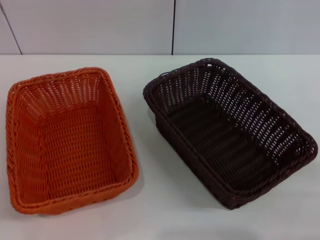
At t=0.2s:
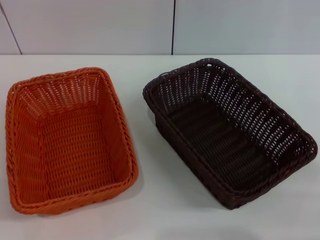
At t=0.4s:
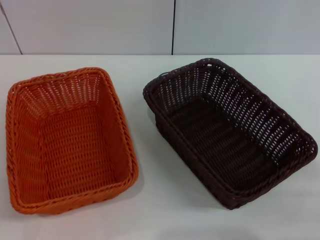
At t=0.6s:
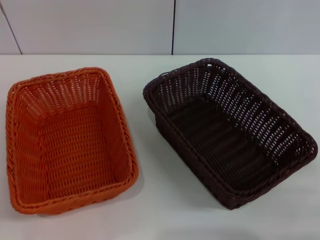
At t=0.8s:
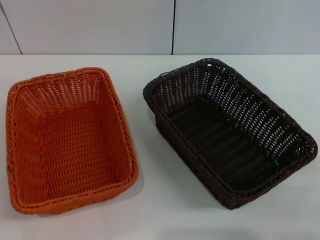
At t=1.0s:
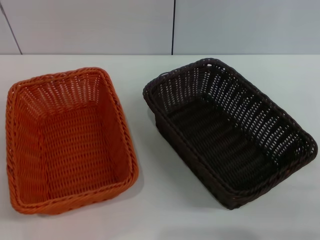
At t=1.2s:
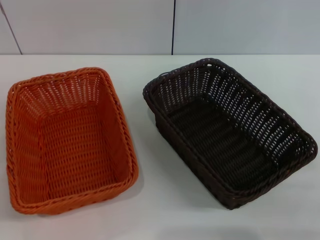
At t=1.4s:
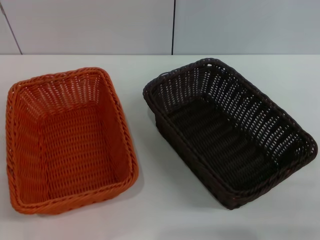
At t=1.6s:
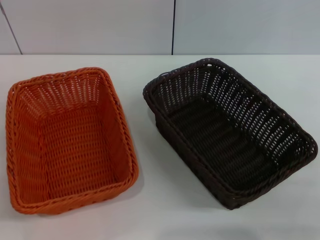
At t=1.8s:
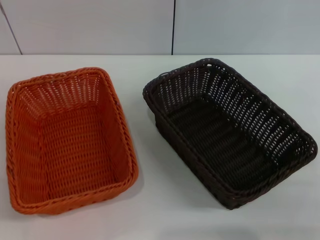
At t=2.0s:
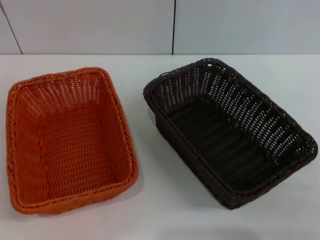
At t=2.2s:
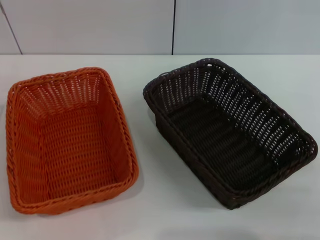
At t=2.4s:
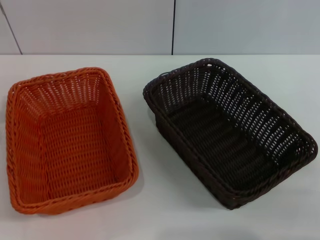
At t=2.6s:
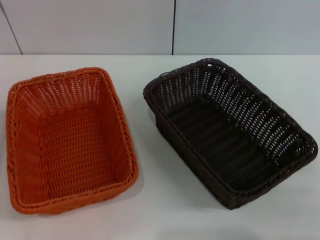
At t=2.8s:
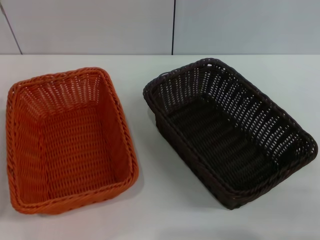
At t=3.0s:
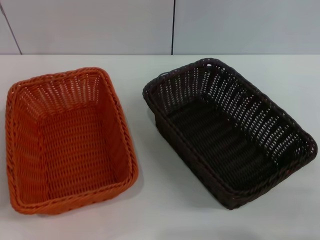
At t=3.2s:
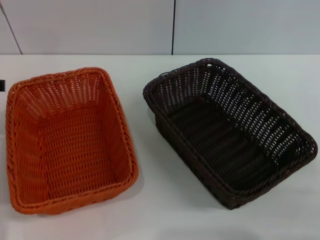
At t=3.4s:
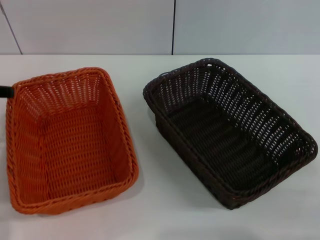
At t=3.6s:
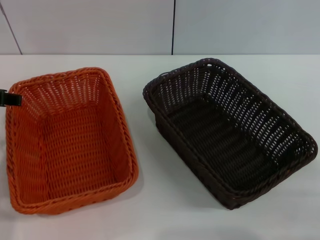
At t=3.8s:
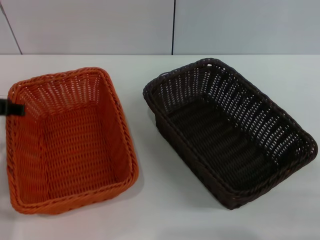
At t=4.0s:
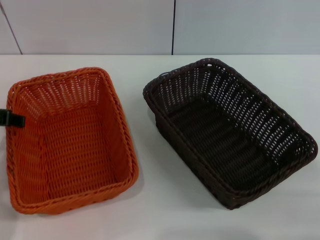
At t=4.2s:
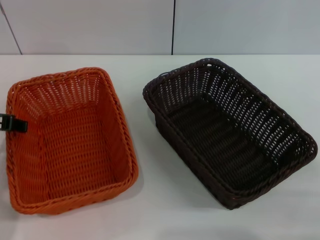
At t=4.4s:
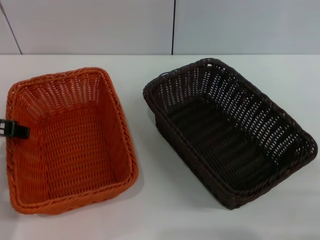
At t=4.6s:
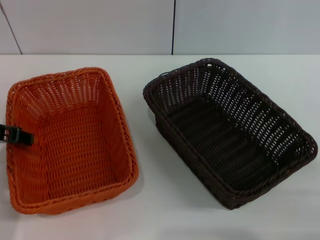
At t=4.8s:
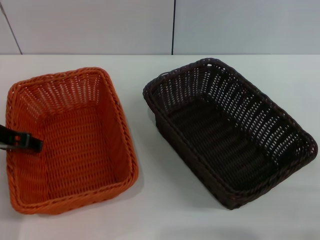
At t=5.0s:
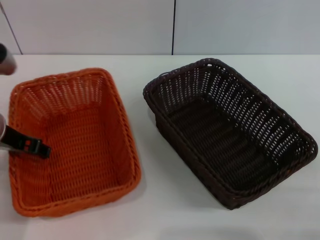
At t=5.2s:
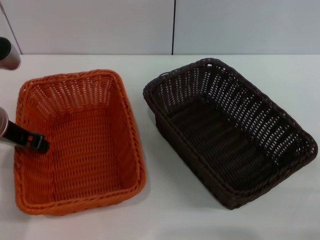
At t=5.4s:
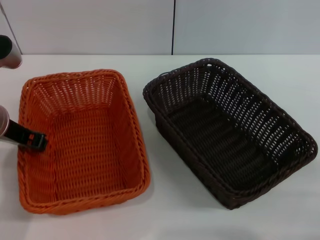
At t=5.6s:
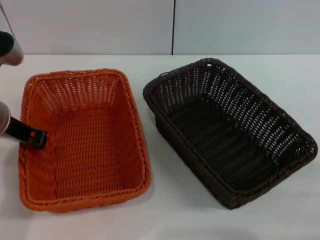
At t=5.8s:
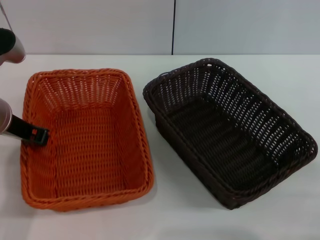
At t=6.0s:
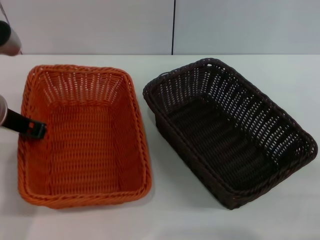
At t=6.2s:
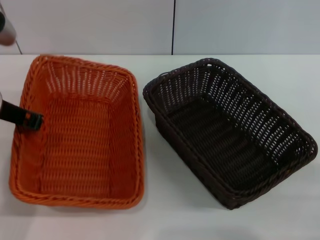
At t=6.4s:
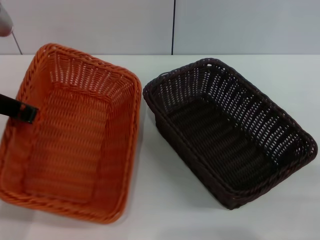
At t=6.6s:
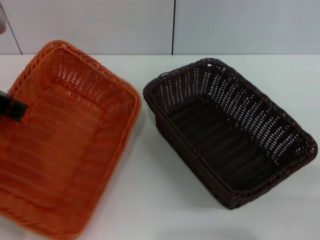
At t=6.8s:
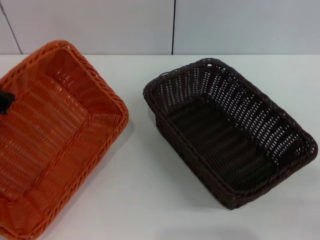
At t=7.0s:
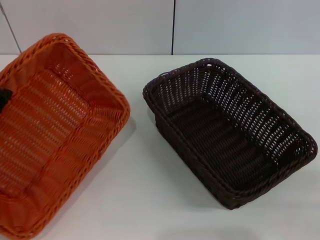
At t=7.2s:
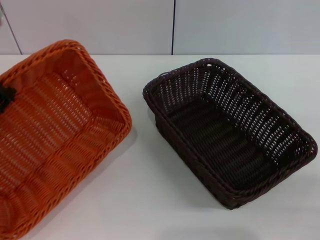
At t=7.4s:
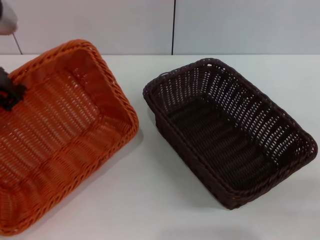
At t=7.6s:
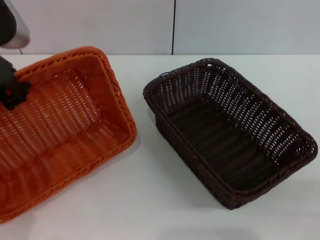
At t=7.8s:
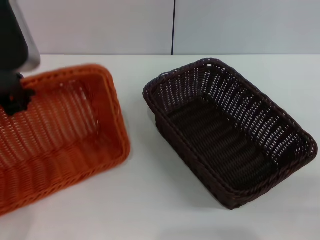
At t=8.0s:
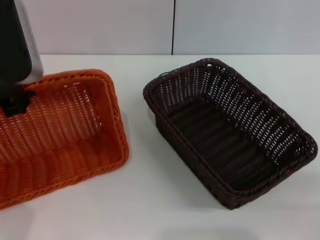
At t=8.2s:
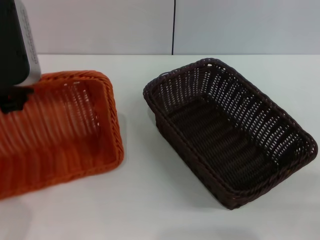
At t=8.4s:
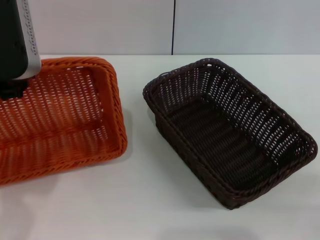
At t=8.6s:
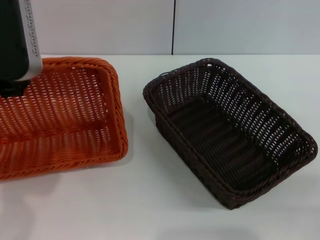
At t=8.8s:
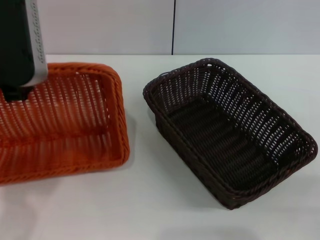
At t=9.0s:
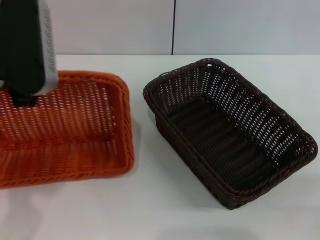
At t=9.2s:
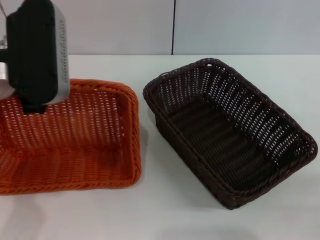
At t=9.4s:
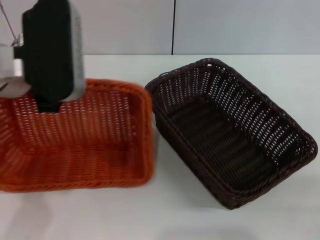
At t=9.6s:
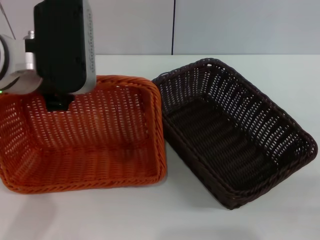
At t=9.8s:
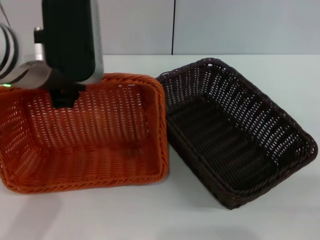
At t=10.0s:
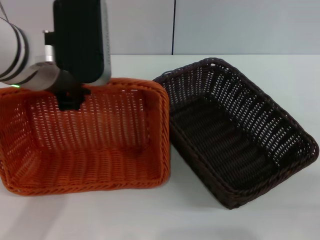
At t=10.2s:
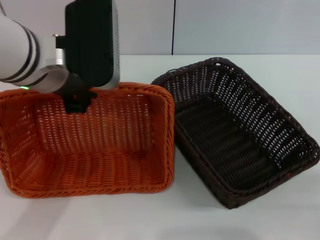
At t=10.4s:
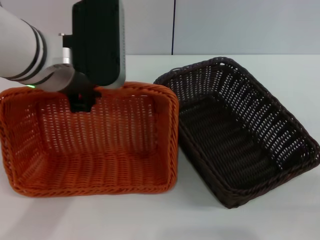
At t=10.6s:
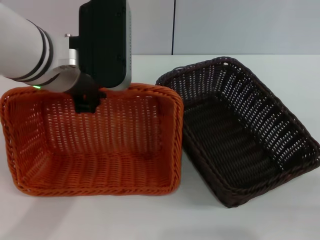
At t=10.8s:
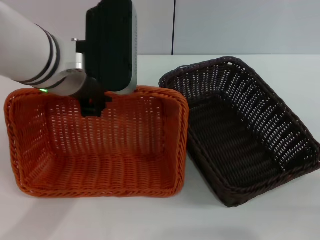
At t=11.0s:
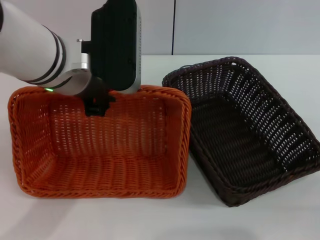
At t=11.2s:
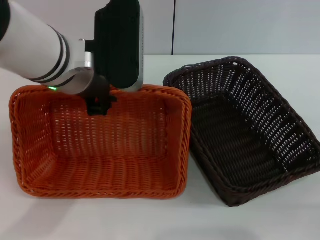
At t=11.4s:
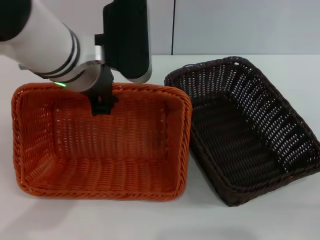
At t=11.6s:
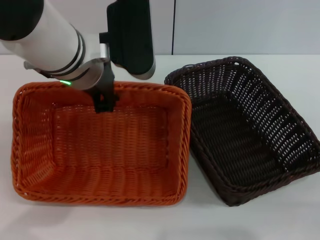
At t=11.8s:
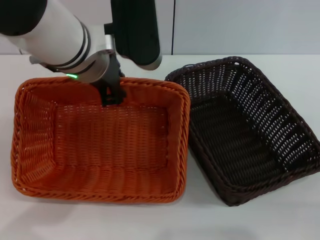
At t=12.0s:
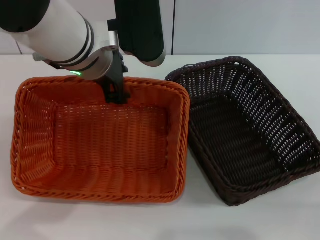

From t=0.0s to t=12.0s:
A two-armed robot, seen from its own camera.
Step, from t=0.0s to t=6.6s: Pick up the light basket with the left gripper.
From t=3.0s to t=4.4s: The left gripper is displaced downward by approximately 5 cm.
From t=4.4s to t=6.0s: The left gripper closes.
From t=6.0s to t=7.6s: The left gripper moves upward, approximately 5 cm.
From t=9.0s to t=10.4s: The left gripper moves to the right, roughly 5 cm.
From t=10.4s to t=12.0s: The left gripper ends up some 5 cm from where it was.

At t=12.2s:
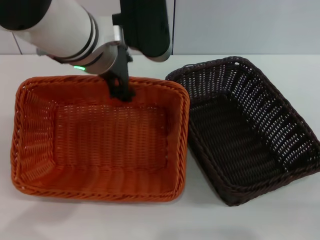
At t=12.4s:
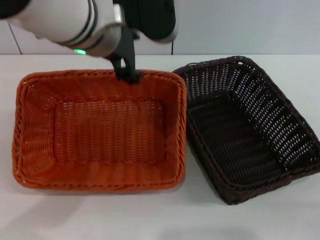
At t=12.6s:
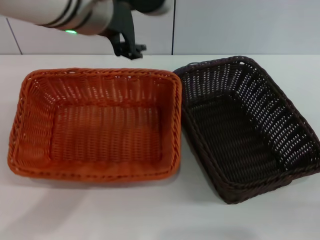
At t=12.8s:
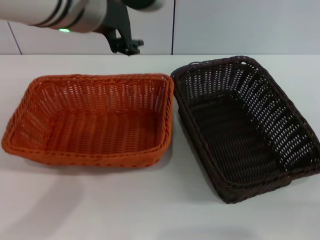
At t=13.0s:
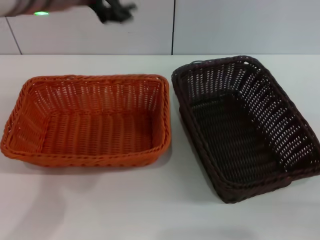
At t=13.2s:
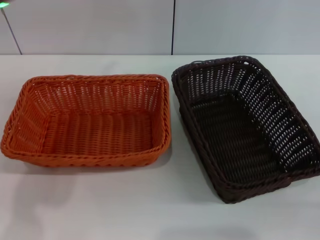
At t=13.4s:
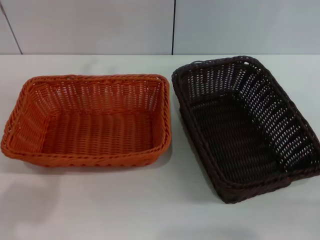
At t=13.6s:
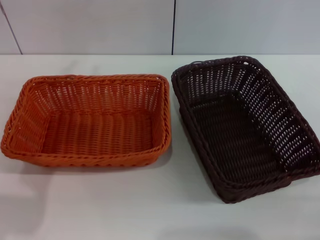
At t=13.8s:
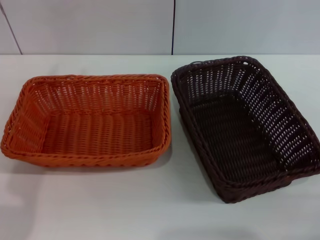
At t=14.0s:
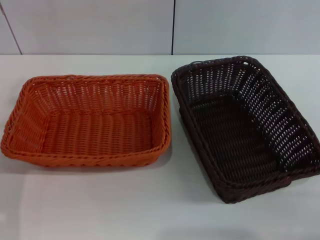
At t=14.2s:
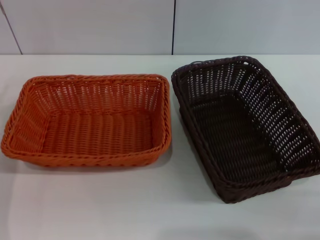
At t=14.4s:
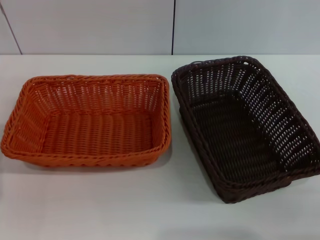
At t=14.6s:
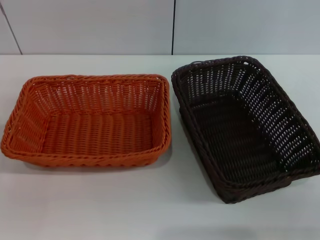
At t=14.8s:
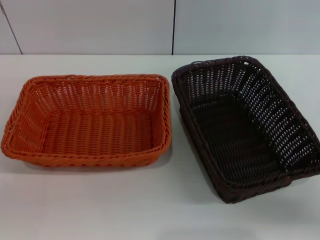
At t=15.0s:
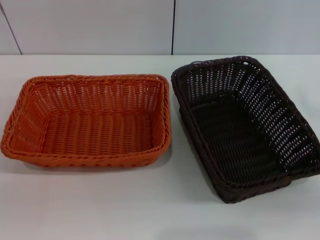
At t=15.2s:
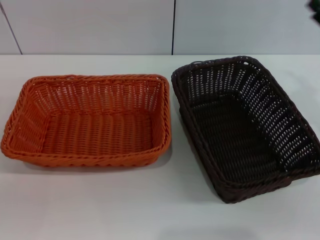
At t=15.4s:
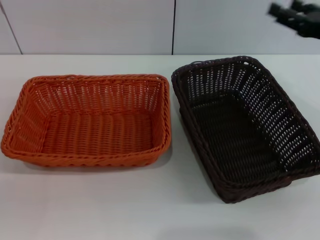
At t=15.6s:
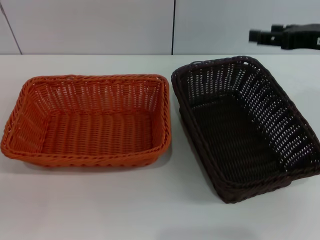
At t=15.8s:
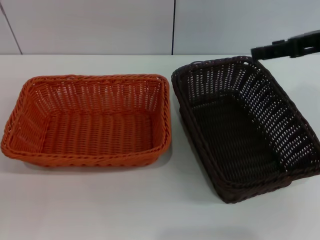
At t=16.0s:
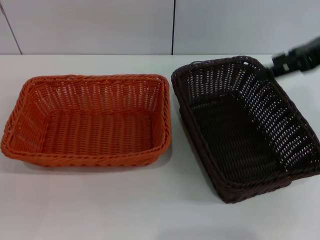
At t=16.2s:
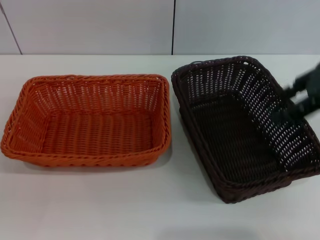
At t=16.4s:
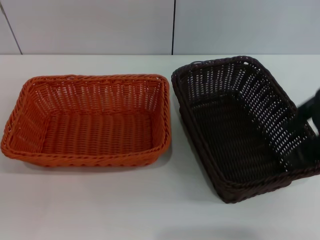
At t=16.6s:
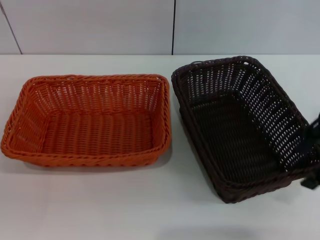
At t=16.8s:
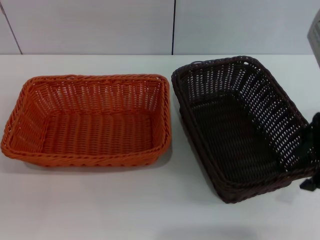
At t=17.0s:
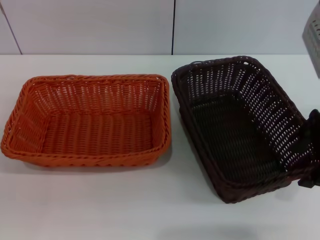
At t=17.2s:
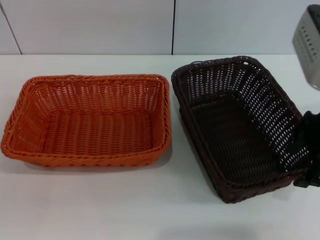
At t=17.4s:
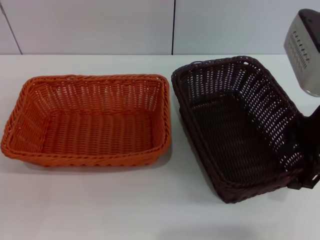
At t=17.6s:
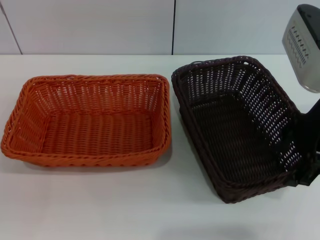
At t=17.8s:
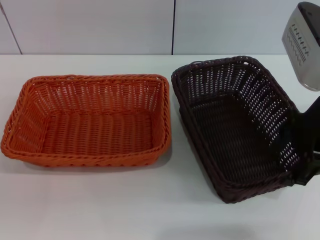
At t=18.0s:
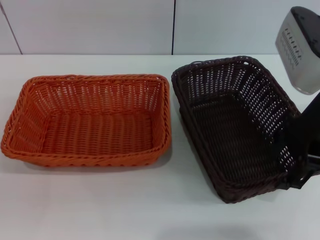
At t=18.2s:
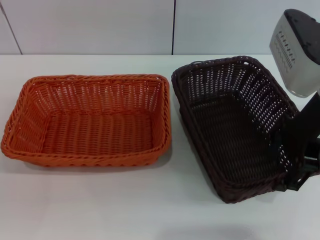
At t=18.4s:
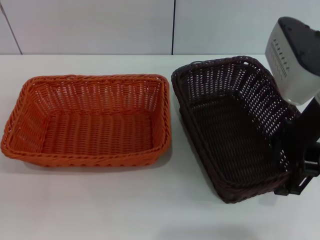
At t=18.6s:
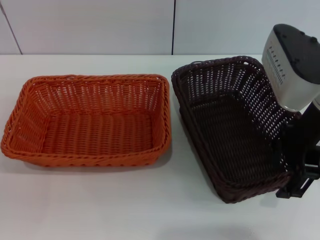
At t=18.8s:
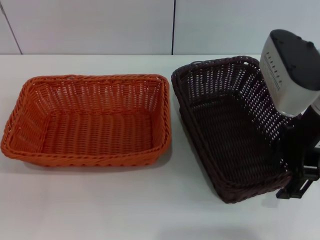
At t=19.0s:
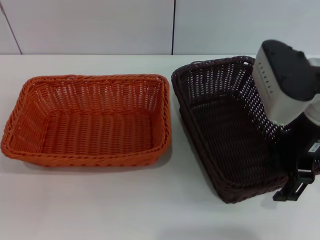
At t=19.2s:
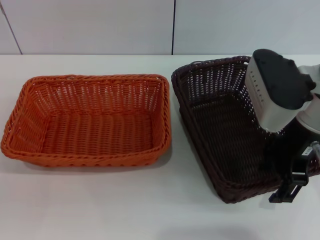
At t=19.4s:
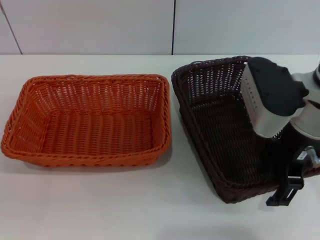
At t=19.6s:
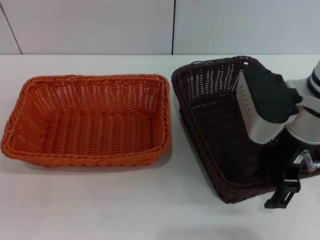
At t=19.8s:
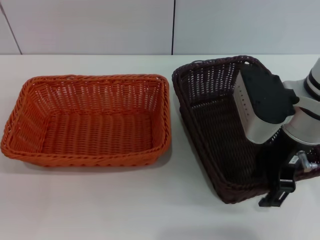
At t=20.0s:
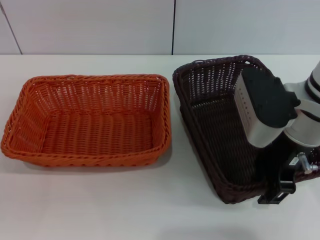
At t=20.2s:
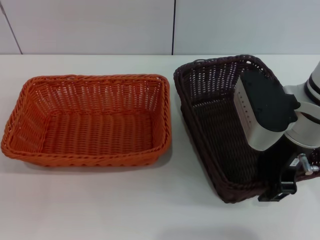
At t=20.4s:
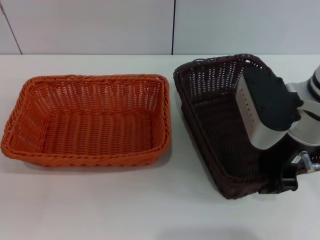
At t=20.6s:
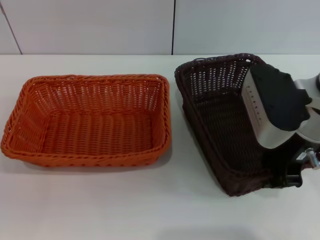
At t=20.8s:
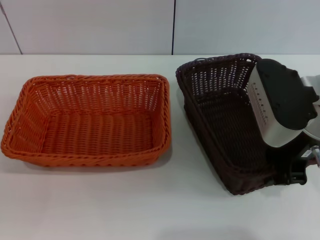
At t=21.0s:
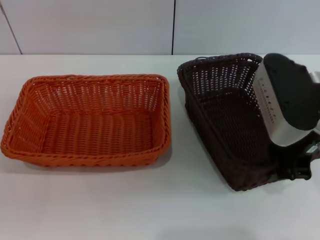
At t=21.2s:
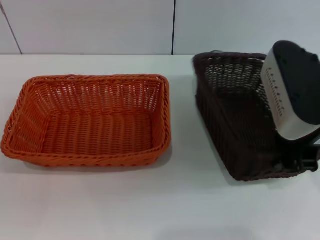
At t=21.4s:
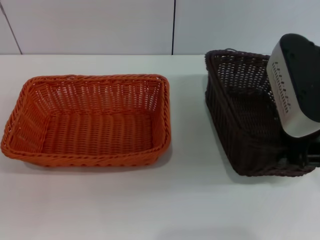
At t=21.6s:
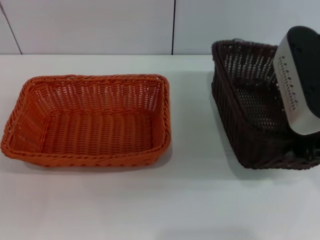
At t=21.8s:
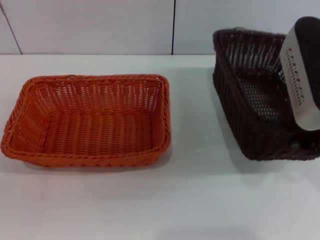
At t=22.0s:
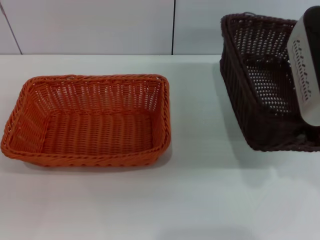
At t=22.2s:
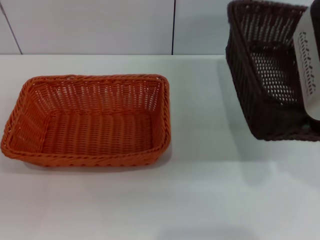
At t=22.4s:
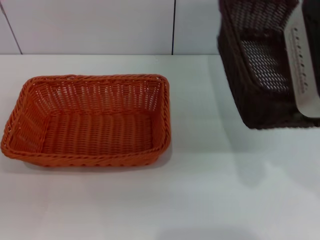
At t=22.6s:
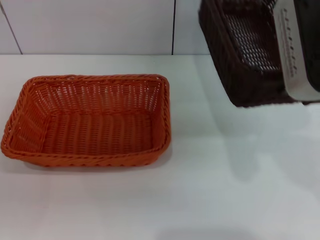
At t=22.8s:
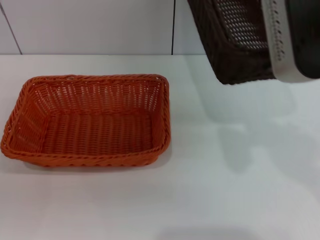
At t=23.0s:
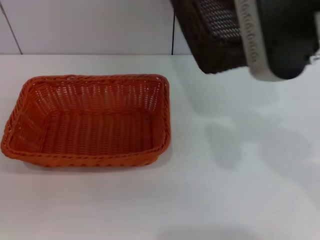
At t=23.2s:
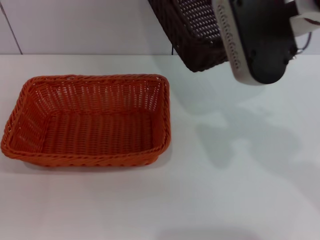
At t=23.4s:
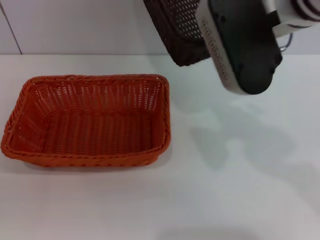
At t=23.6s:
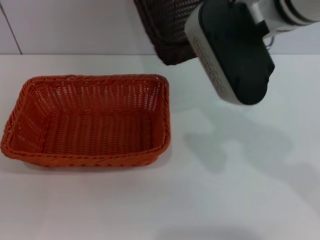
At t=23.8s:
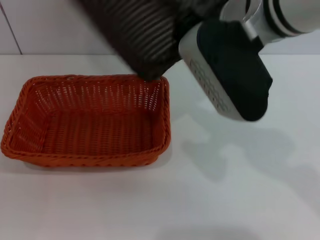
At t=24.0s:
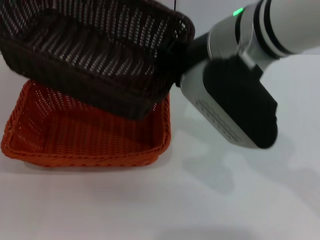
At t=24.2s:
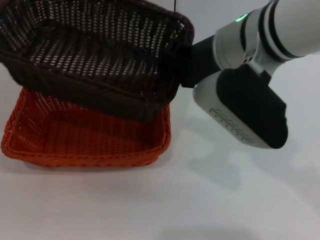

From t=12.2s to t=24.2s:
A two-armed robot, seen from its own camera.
Step, from t=13.2s to t=21.8s: Pick up the dark basket with the right gripper.
From t=12.2s to t=13.8s: The left gripper heads to the left and backward, covering roughly 15 cm, and opens its fingers.
From t=15.2s to t=16.6s: The right gripper travels upward and to the left by about 15 cm.
From t=16.6s to t=18.2s: The right gripper ends up some 5 cm from where it was.
From t=18.2s to t=19.8s: The right gripper travels downward by roughly 5 cm.
From t=19.8s to t=21.2s: The right gripper is displaced upward by roughly 5 cm, and closes its fingers.
From t=21.2s to t=22.6s: The right gripper shifts some 10 cm upward.
From t=22.6s to t=24.2s: The right gripper heads to the left, covering about 10 cm.
